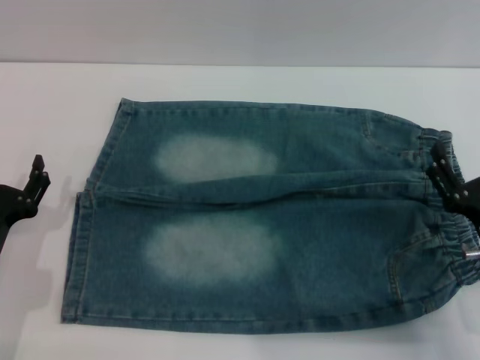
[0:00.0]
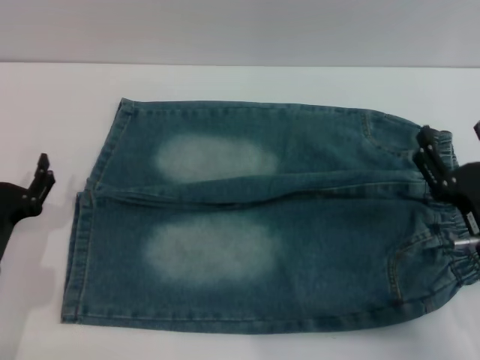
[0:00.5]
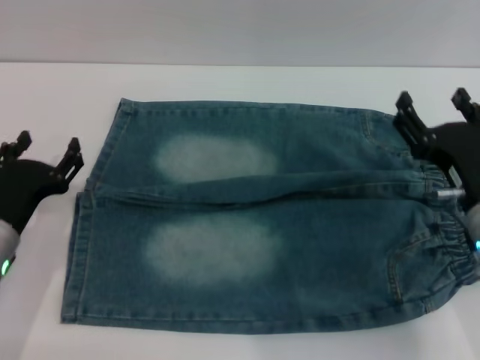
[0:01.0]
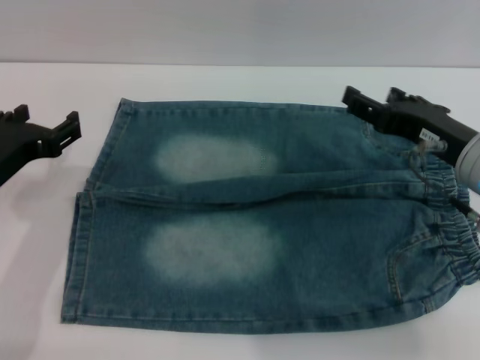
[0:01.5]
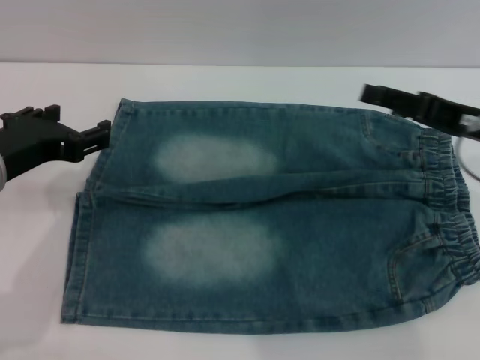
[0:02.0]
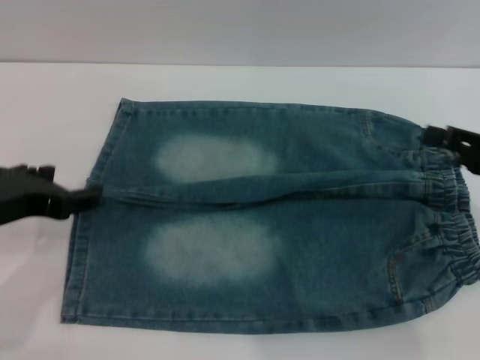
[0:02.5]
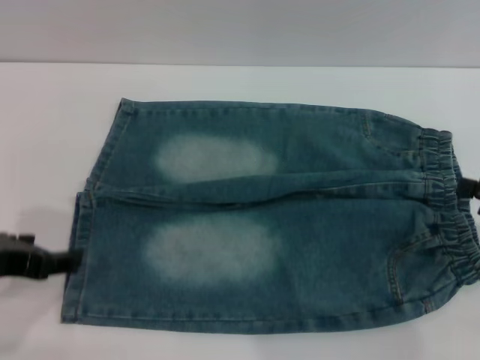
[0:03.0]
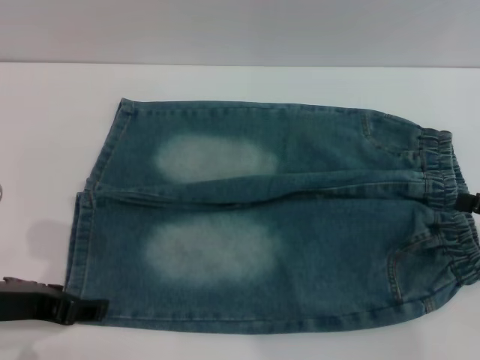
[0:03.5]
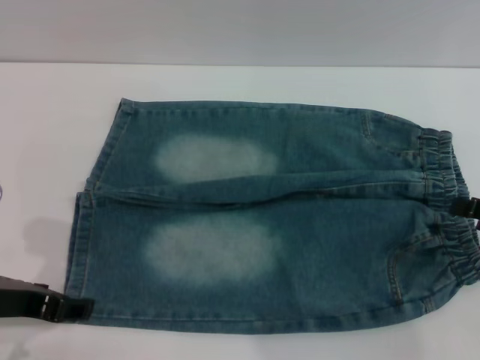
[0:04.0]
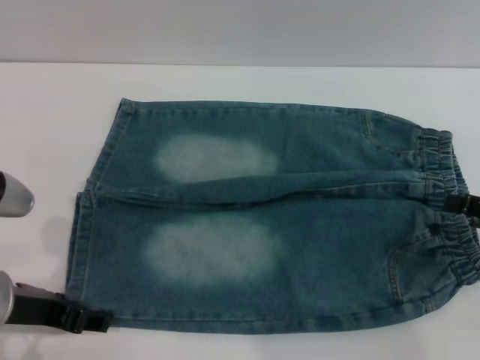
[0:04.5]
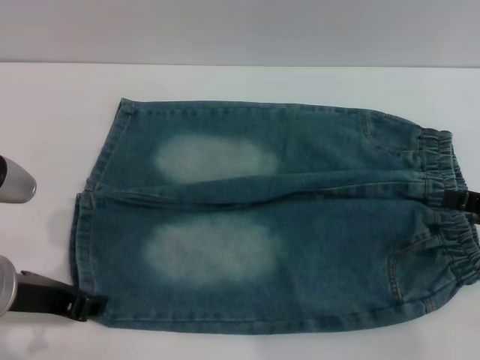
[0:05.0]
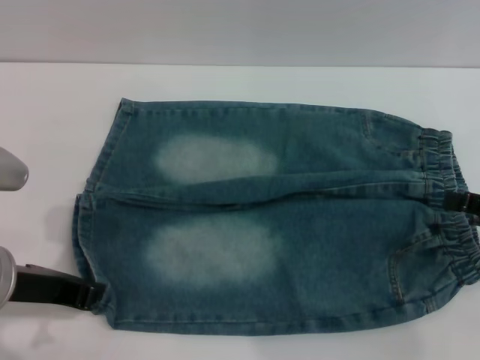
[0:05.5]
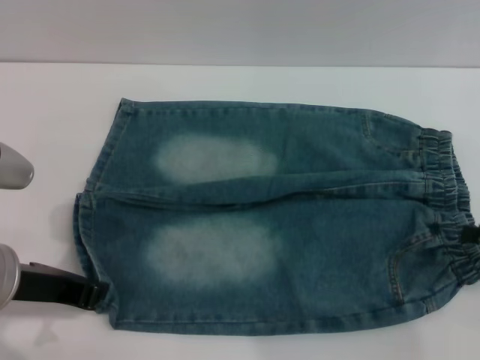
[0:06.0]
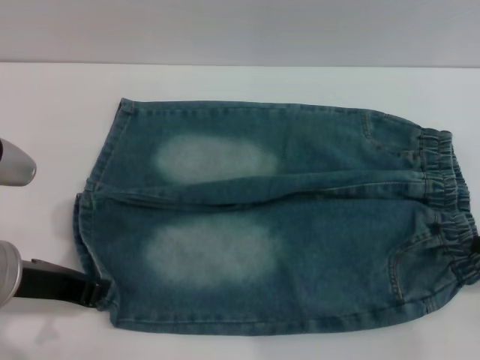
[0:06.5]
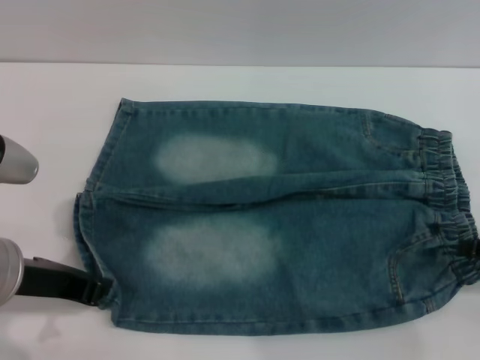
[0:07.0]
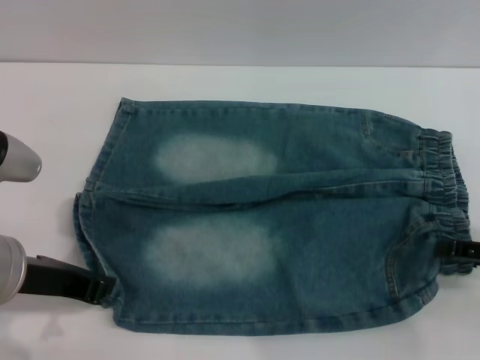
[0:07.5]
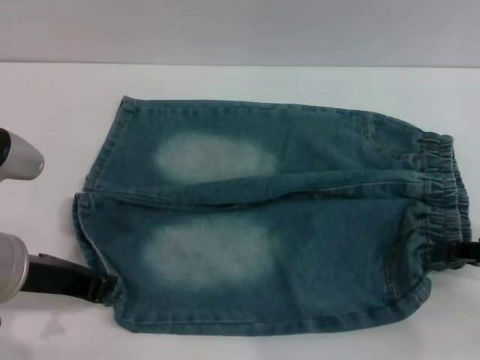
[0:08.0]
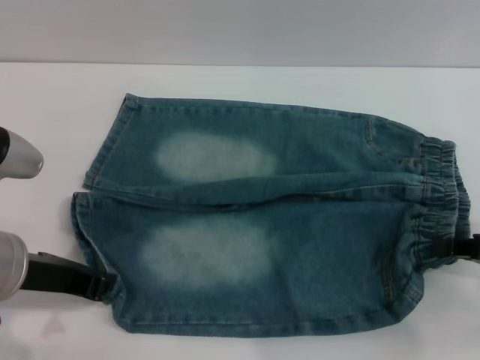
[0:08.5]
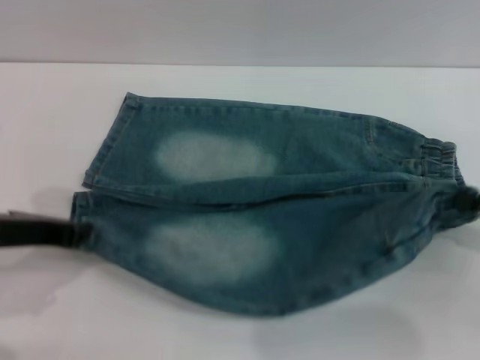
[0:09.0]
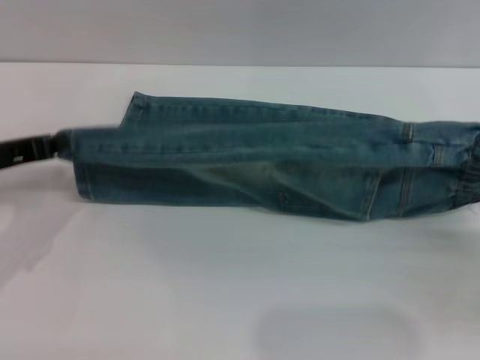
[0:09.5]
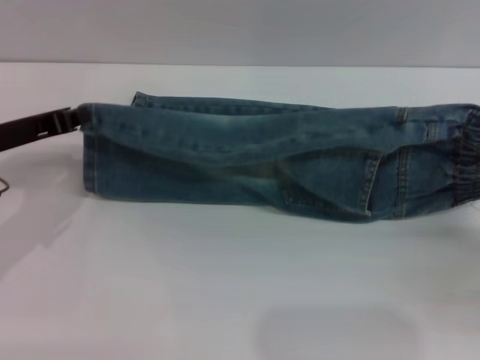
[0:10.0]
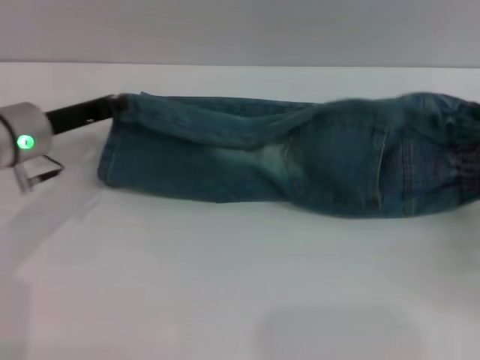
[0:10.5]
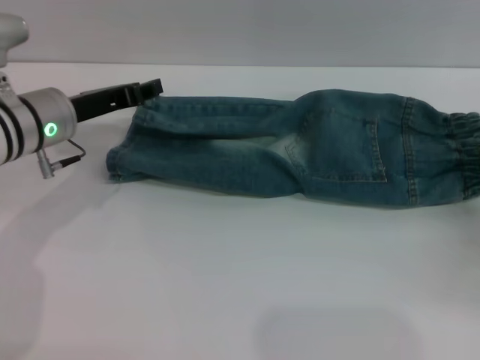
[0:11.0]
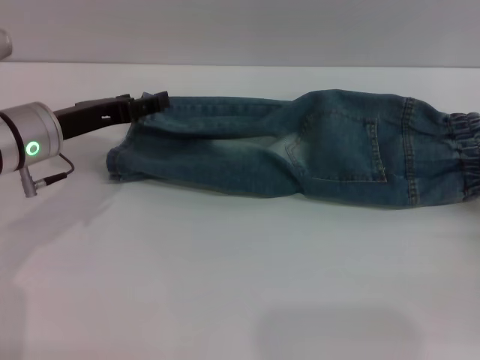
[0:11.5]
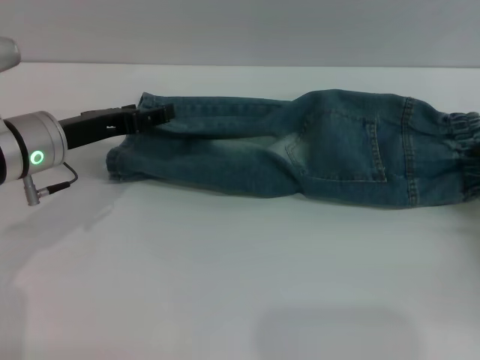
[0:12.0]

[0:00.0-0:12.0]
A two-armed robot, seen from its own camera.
0:00.0 to 0:02.0: The right gripper goes roughly 15 cm upward and forward. The left gripper travels upward by roughly 15 cm.
0:02.0 to 0:04.0: The left gripper goes about 5 cm backward; the right gripper travels to the right and backward by about 10 cm.
0:04.0 to 0:06.0: The left gripper closes its fingers.
0:06.0 to 0:08.0: The right gripper closes up.
0:08.0 to 0:10.0: The right gripper closes. The left gripper moves forward and to the left, about 10 cm.
0:10.0 to 0:12.0: The left gripper moves roughly 5 cm, and opens up; the right gripper changes place by some 5 cm, and opens.

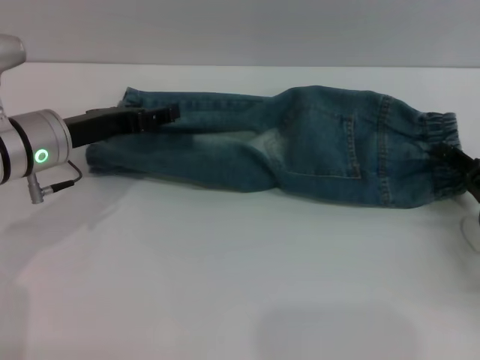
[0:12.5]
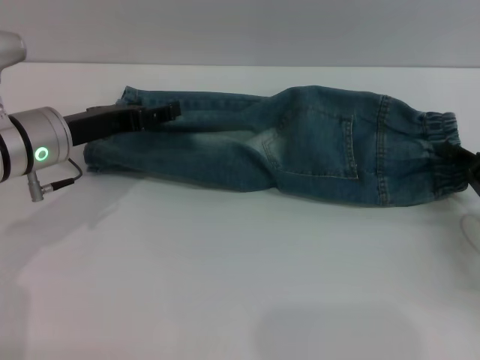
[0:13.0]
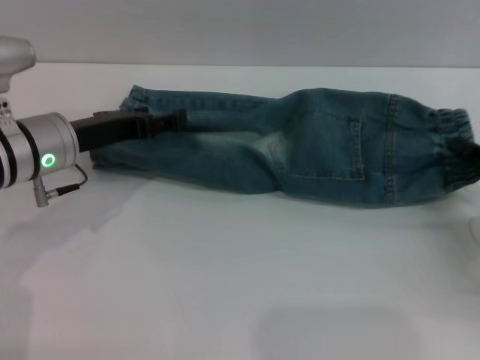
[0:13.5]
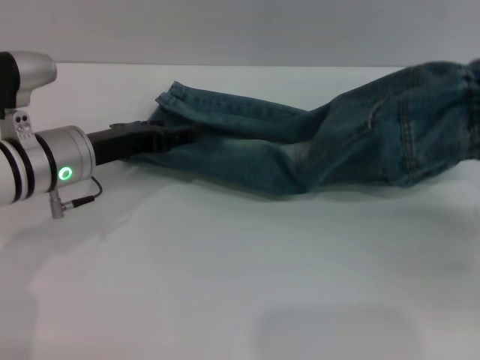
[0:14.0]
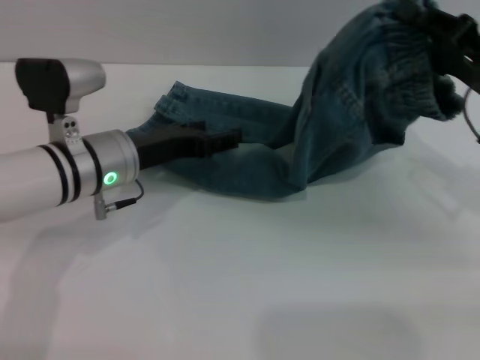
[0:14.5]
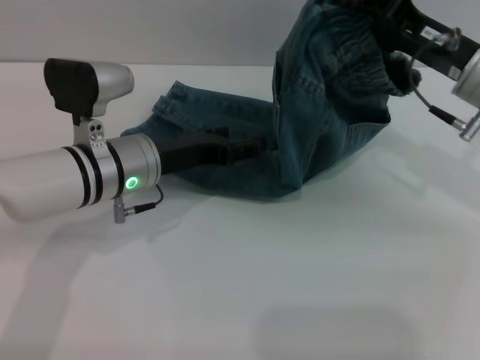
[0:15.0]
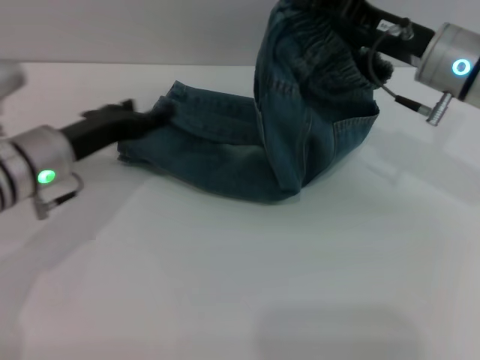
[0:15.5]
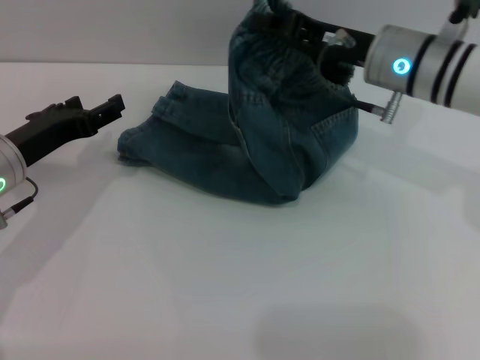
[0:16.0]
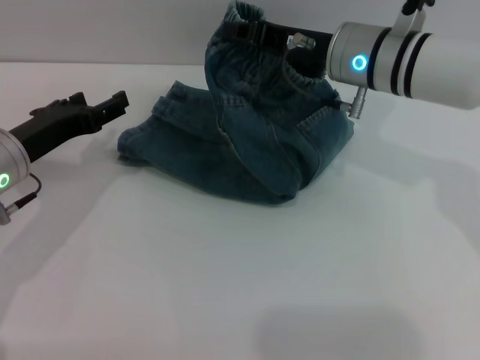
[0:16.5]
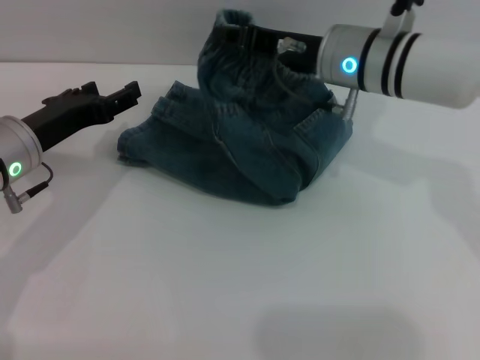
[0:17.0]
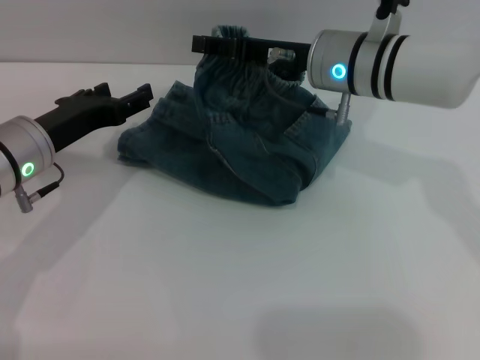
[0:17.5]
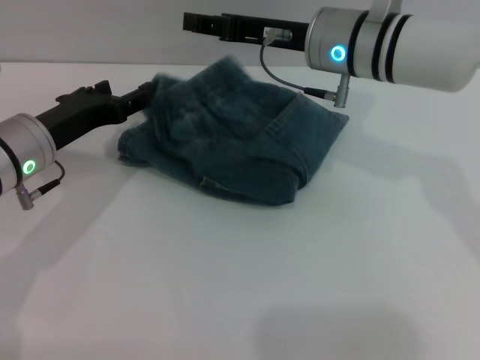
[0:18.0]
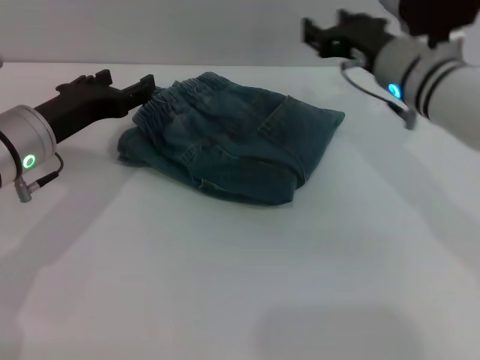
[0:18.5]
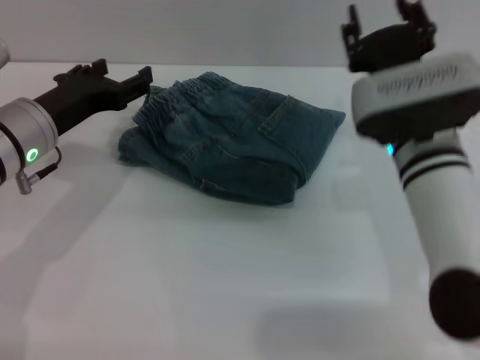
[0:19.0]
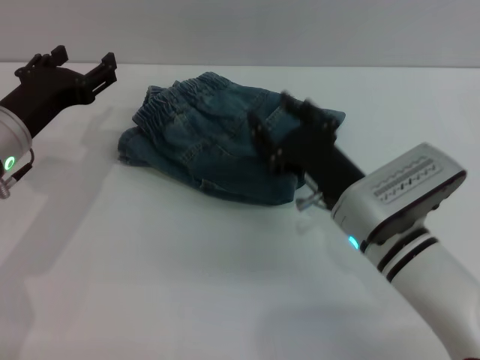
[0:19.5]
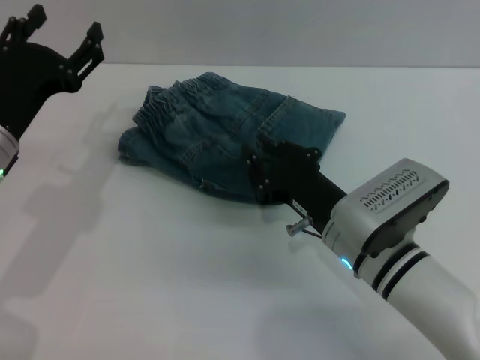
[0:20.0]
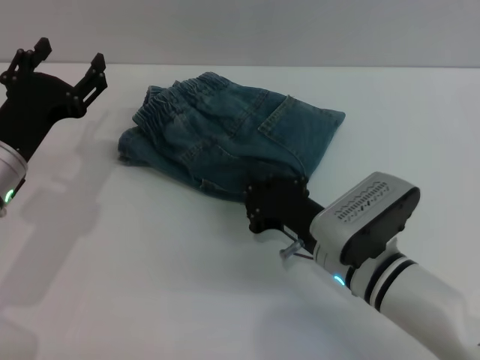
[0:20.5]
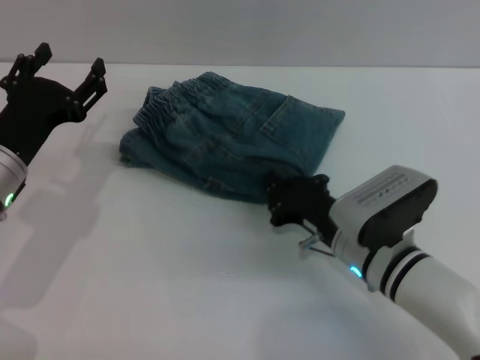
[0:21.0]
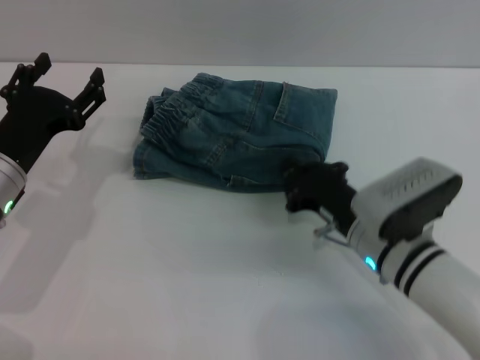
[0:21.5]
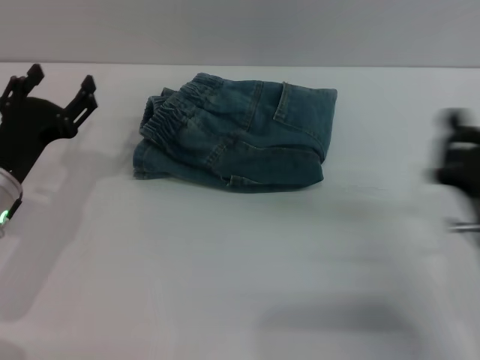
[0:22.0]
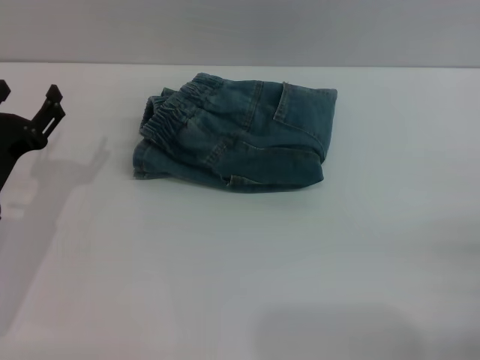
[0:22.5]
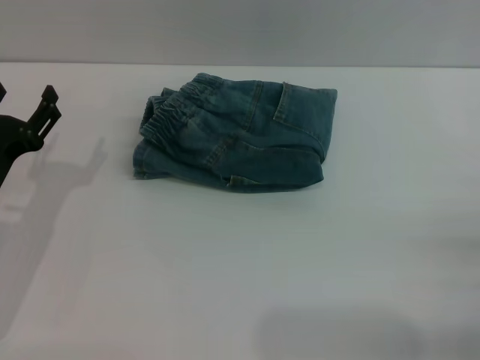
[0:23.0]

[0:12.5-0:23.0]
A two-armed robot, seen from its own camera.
Step, 0:12.5 to 0:18.0: Fold the pants from right to left with the right gripper.
Step, 0:18.5 to 0:21.5: Place the folded trousers onto the center area with the right grippers.
0:12.5 to 0:14.5: The left gripper shifts some 5 cm to the right. Meanwhile the right gripper travels upward, forward and to the left by about 15 cm, and closes up.
0:14.5 to 0:16.5: The left gripper shifts some 10 cm to the left. The right gripper heads to the left and forward, covering about 15 cm.
0:16.5 to 0:19.0: The right gripper is displaced backward and downward by approximately 10 cm, and opens its fingers.
0:19.0 to 0:21.0: The right gripper shifts roughly 10 cm downward and backward, and closes its fingers. Meanwhile the left gripper moves about 5 cm.
0:21.0 to 0:23.0: The left gripper changes place by approximately 5 cm, while the right gripper goes roughly 20 cm to the right and backward, and opens.
